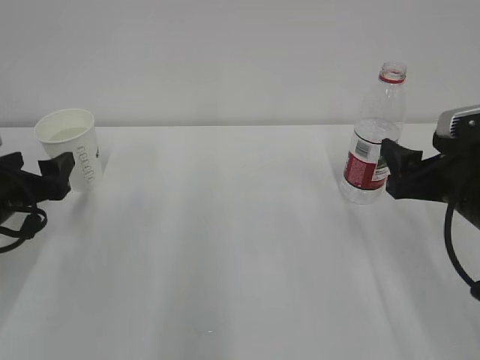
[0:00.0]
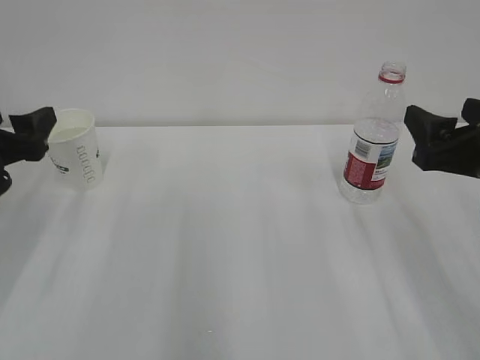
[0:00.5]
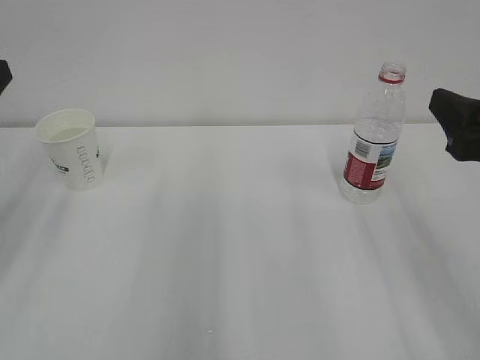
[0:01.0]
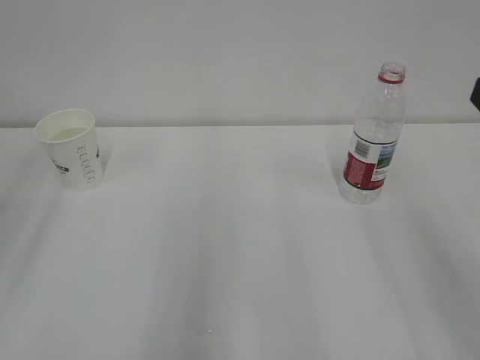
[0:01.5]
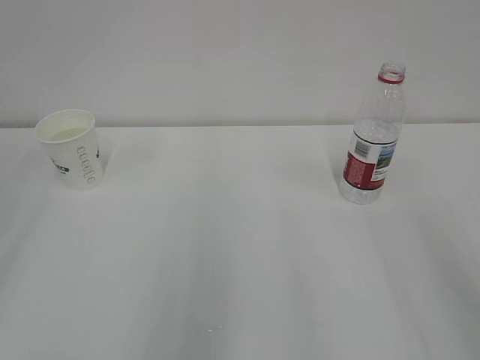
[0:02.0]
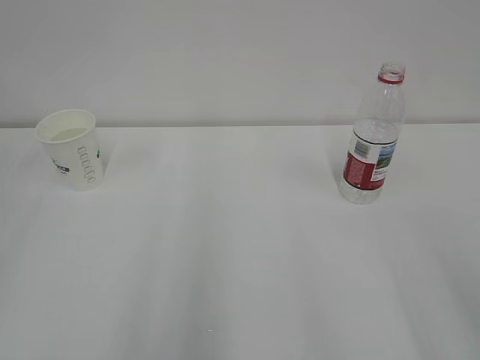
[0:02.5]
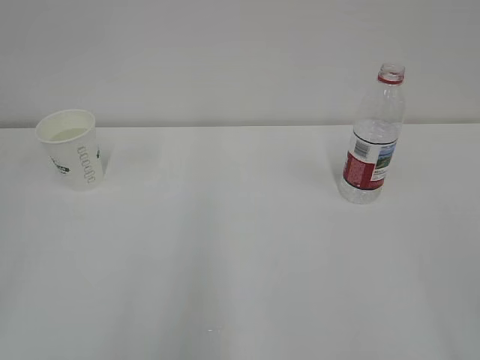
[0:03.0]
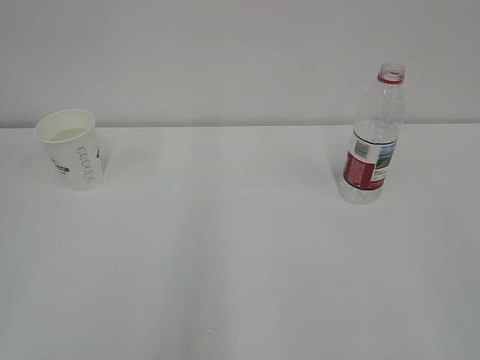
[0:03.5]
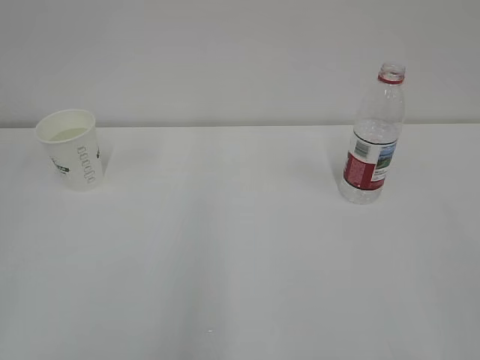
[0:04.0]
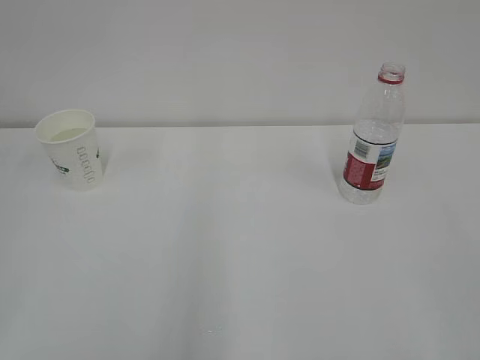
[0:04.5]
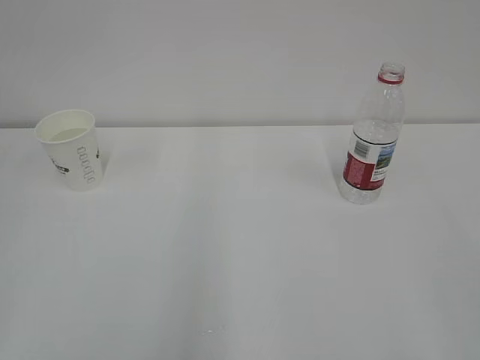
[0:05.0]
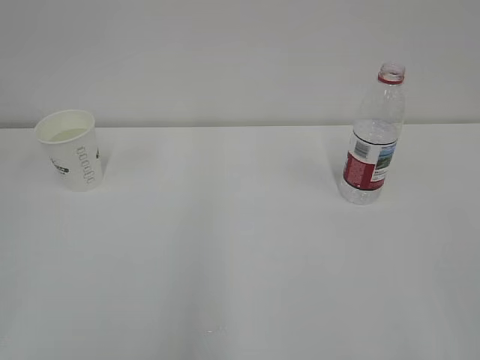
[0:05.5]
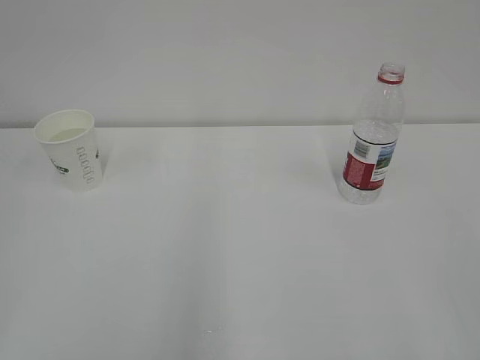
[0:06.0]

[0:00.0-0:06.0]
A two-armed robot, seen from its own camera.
0:00.0 to 0:02.0: The left gripper is displaced backward and upward by approximately 30 cm, while the right gripper shifts some 20 cm backward and upward.
